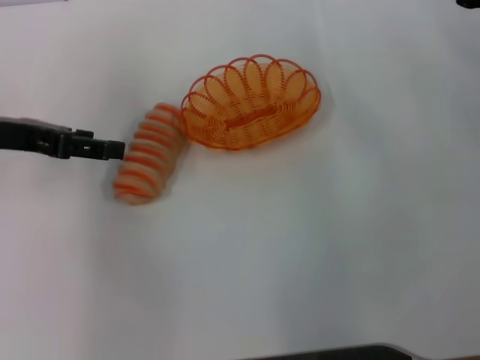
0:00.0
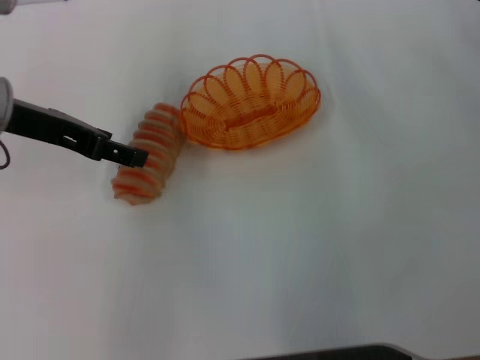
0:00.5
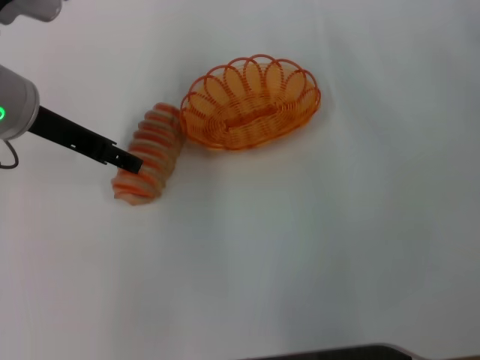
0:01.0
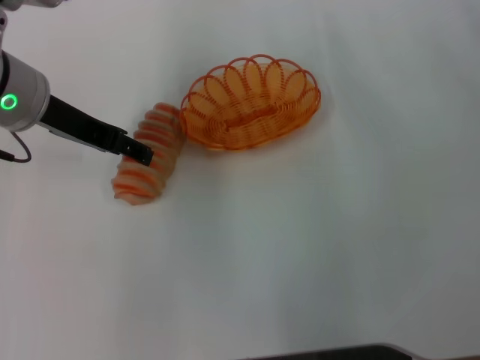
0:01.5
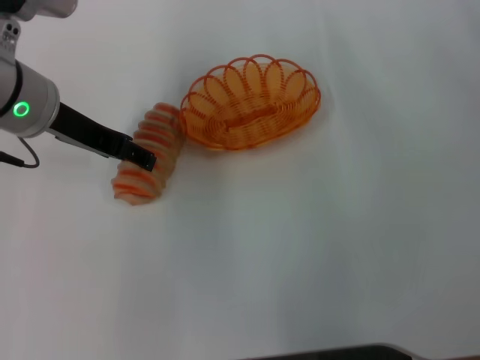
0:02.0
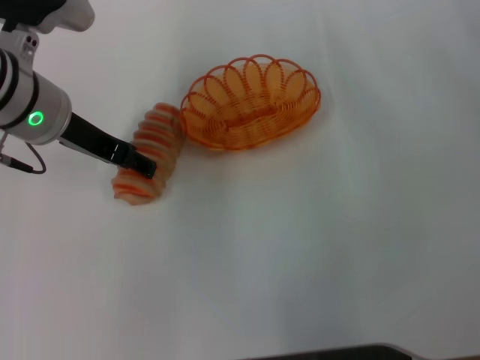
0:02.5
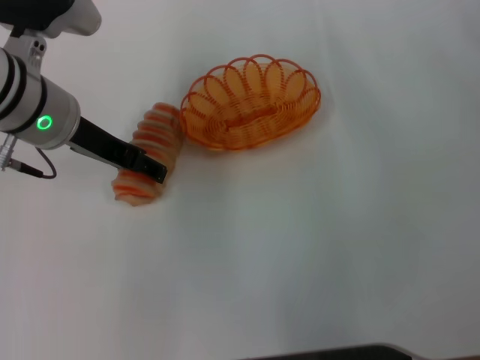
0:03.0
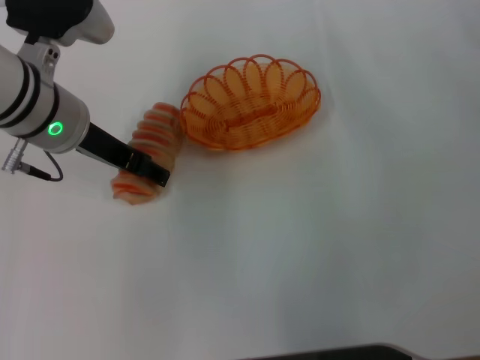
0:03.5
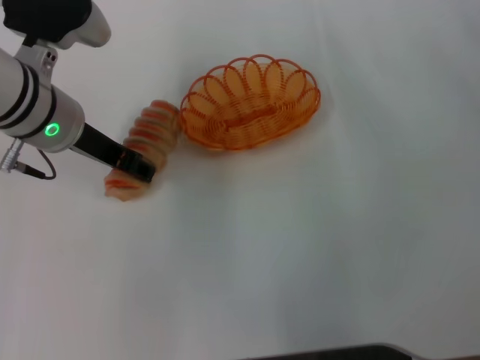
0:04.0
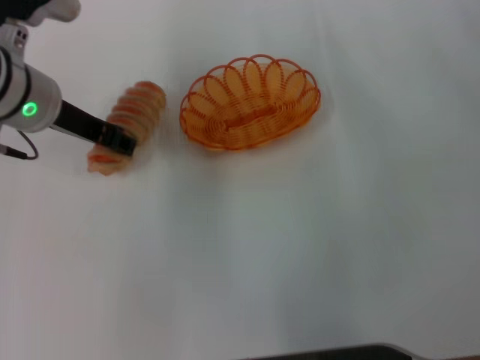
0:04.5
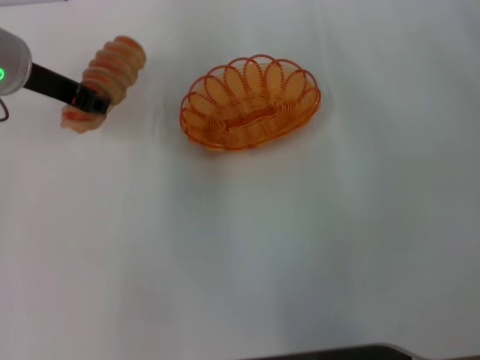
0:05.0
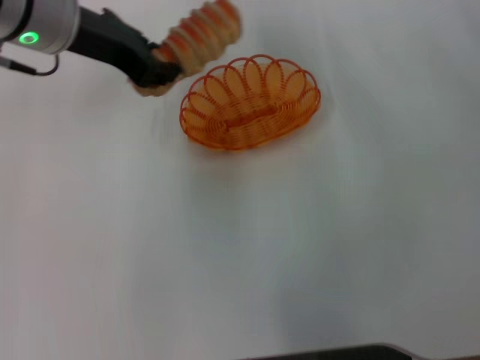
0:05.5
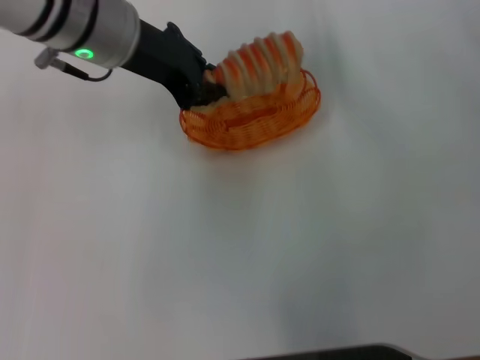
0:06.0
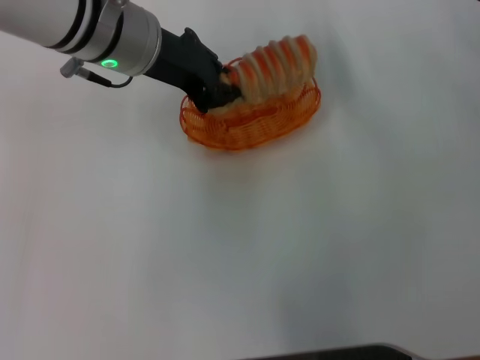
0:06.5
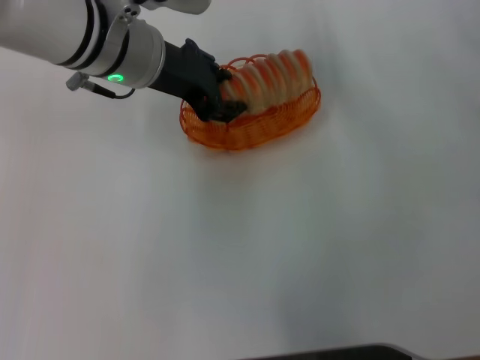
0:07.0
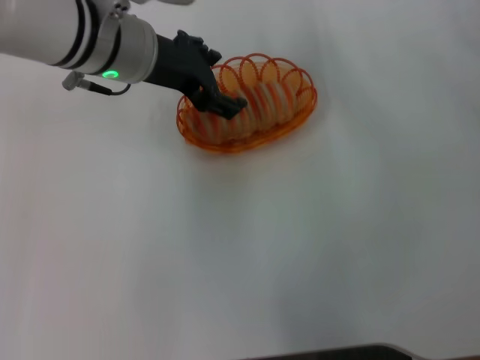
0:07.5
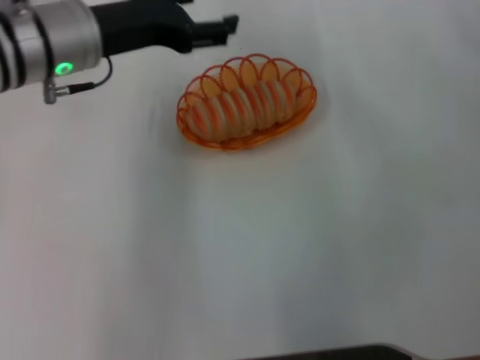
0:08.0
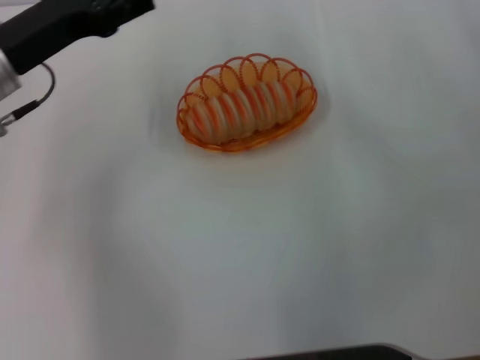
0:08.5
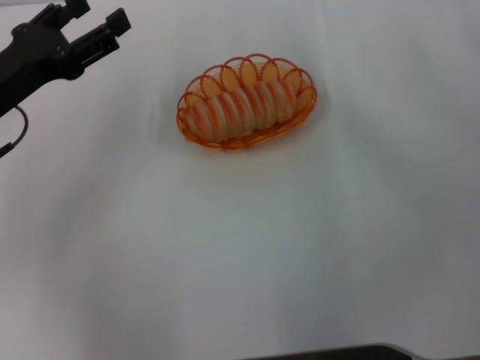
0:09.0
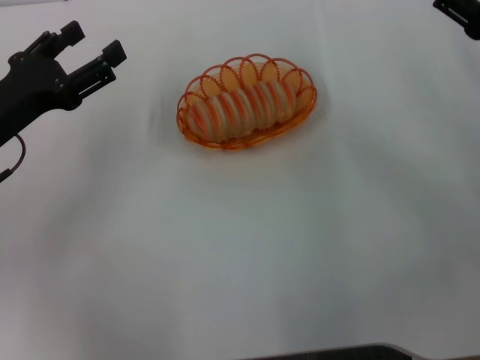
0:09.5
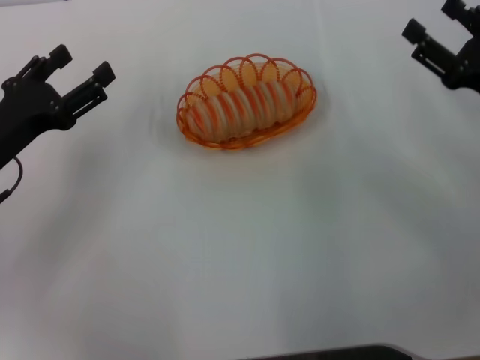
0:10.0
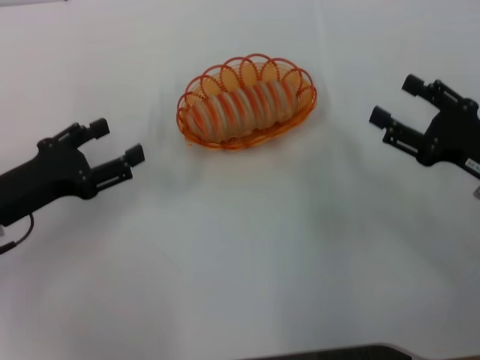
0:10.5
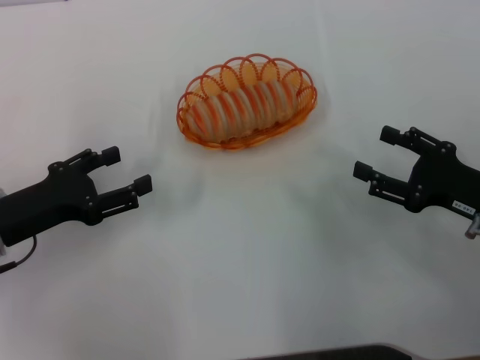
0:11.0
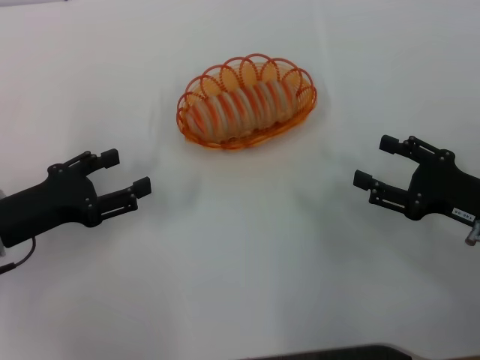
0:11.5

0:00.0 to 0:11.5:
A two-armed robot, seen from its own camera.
Step, 0:00.0 to 0:04.5: Pick up the long bread with the left gripper.
Step, 0:05.0 to 0:07.5: Place the long bread into the basket with the left gripper.
0:00.0 to 0:02.0: The left gripper shifts roughly 10 cm to the right.
0:02.0 to 0:04.0: There are only small adjustments of the grippers.
0:04.0 to 0:06.0: The left gripper heads upward, covering approximately 5 cm, and closes.
0:06.0 to 0:07.5: The left gripper opens its fingers.
0:07.5 to 0:09.5: The right gripper heads backward, covering about 5 cm. The left gripper shifts approximately 20 cm to the left, backward and downward.
0:09.5 to 0:11.5: The left gripper moves downward, roughly 5 cm. Meanwhile the right gripper moves backward and downward, roughly 10 cm.
